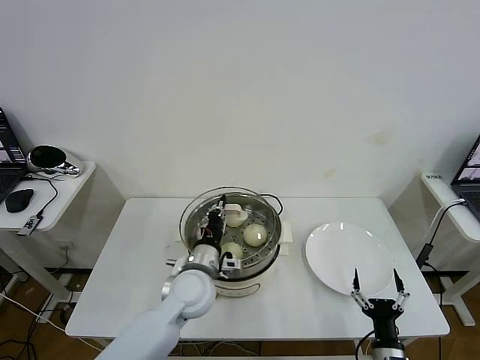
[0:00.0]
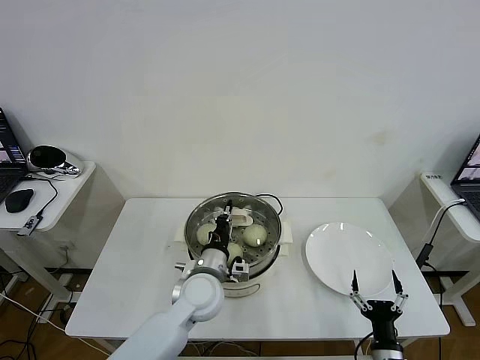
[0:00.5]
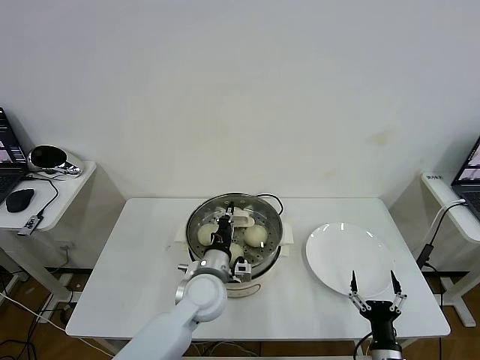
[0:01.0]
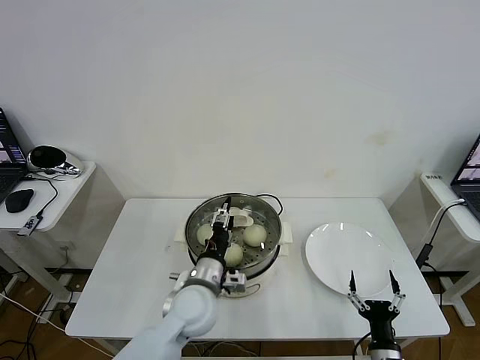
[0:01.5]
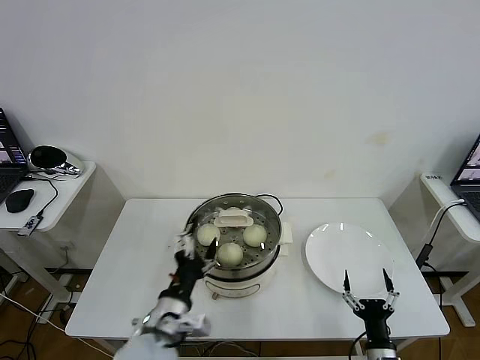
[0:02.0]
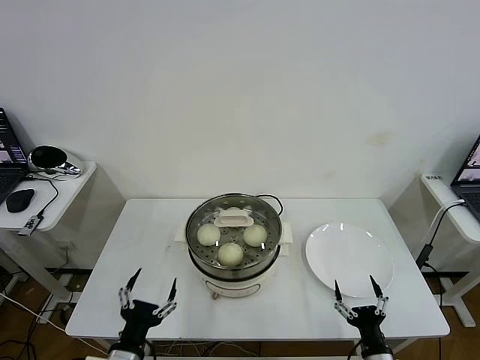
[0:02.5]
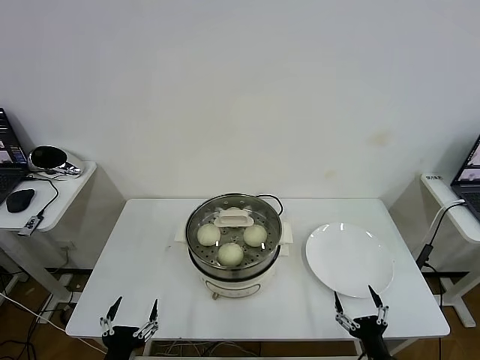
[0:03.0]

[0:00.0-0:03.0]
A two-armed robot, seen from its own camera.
Task of the whole recording: take steamed baozi put them in steamer then cover it.
0:00.0 to 0:01.5: The left gripper opens up.
0:01.5 to 0:03.0: The left gripper moves backward and to the left, about 25 cm, and opens.
